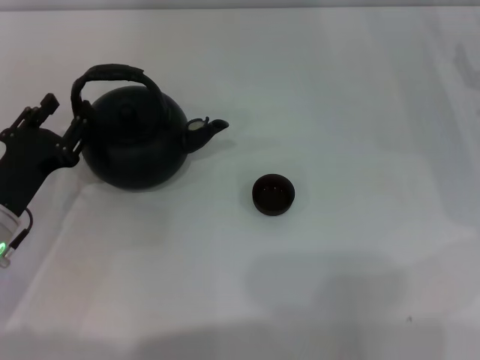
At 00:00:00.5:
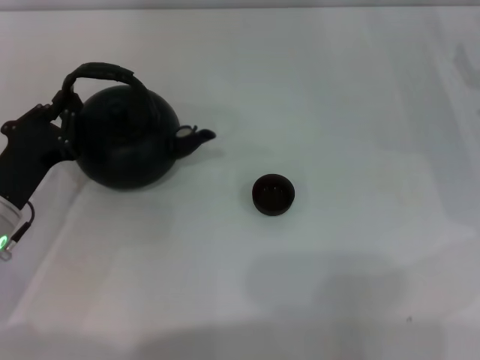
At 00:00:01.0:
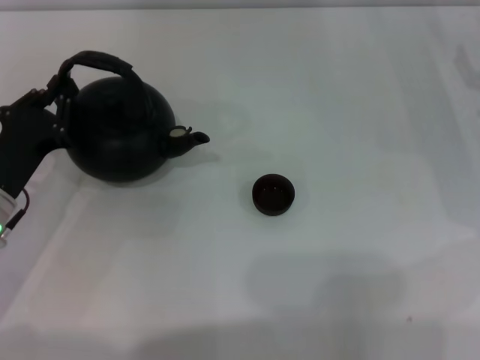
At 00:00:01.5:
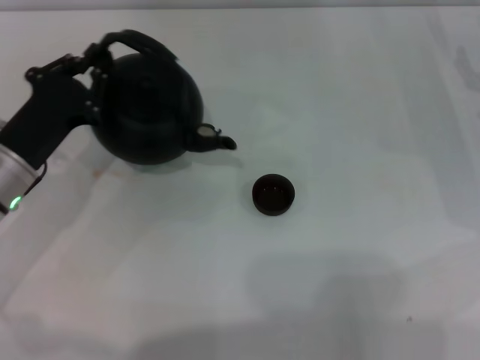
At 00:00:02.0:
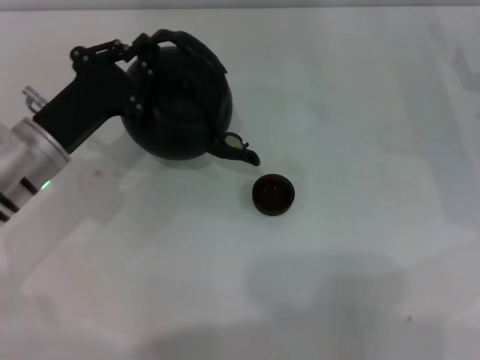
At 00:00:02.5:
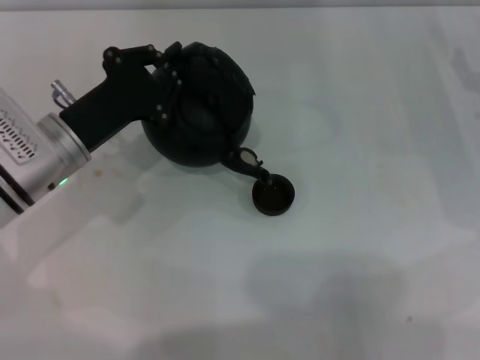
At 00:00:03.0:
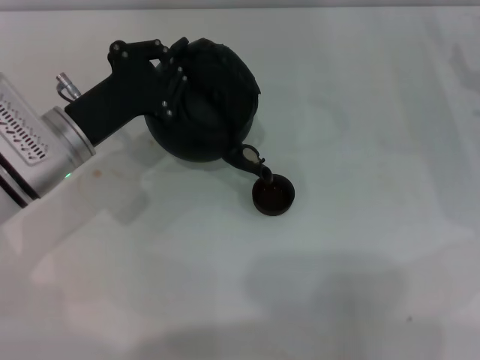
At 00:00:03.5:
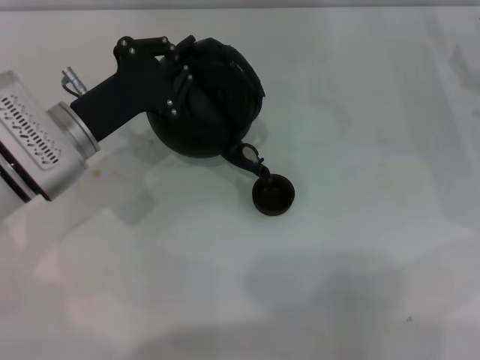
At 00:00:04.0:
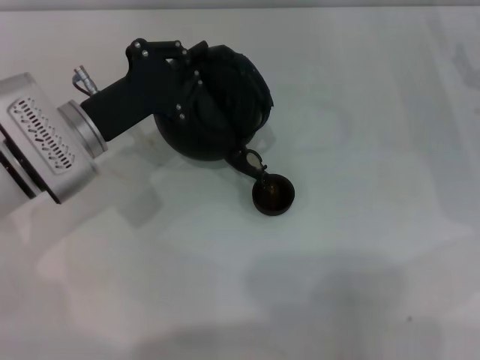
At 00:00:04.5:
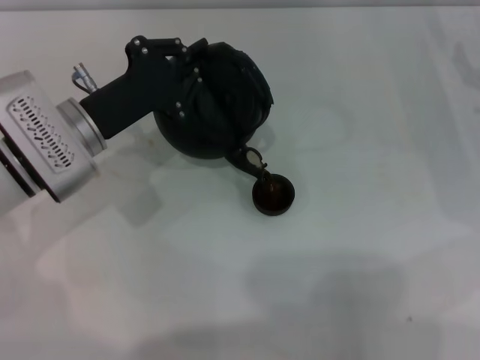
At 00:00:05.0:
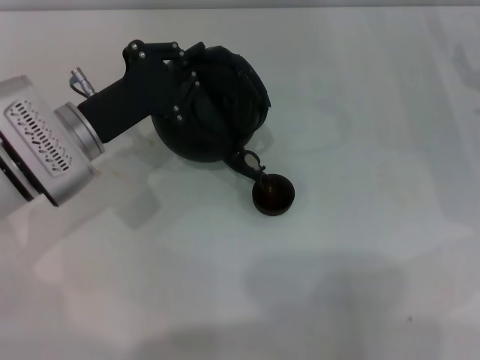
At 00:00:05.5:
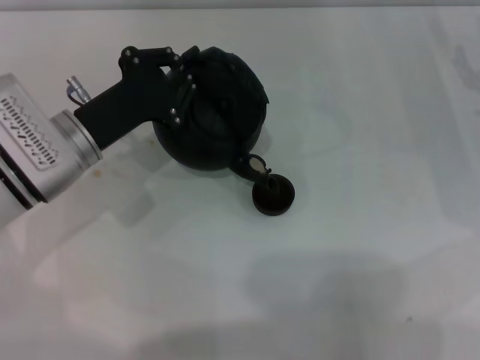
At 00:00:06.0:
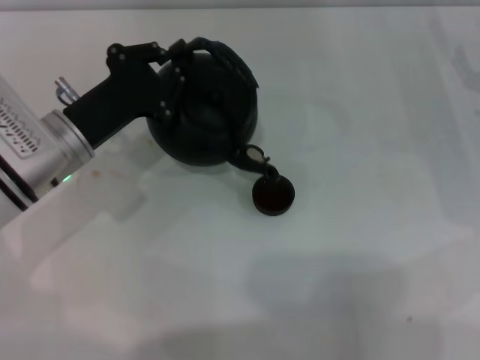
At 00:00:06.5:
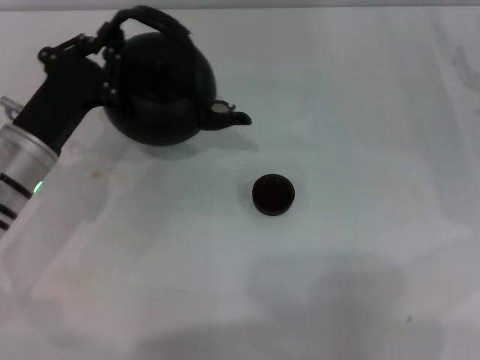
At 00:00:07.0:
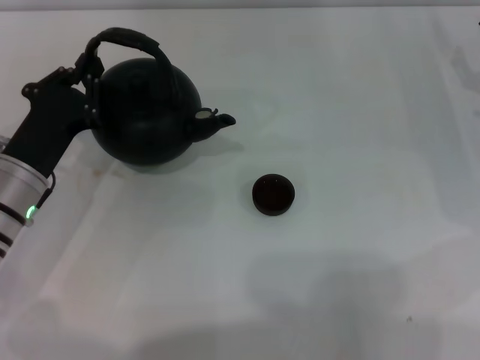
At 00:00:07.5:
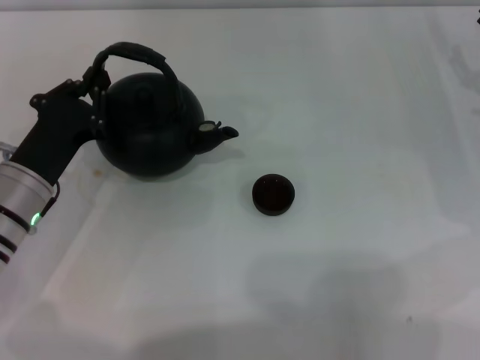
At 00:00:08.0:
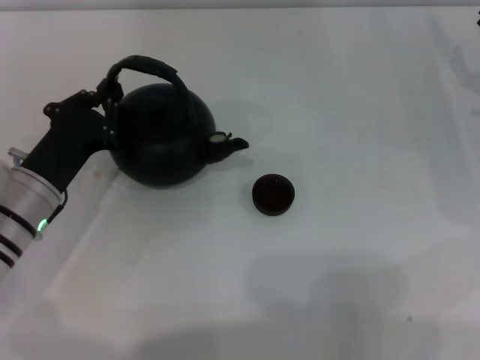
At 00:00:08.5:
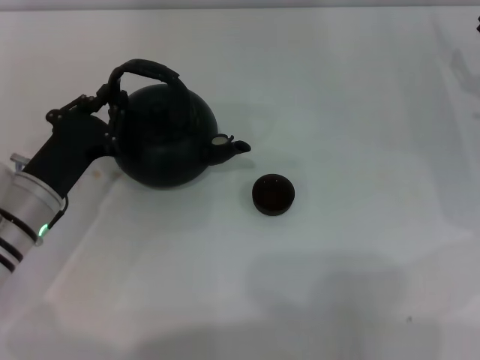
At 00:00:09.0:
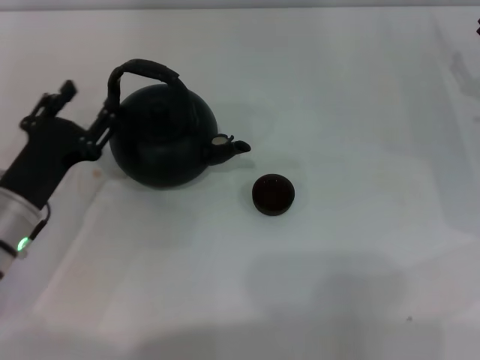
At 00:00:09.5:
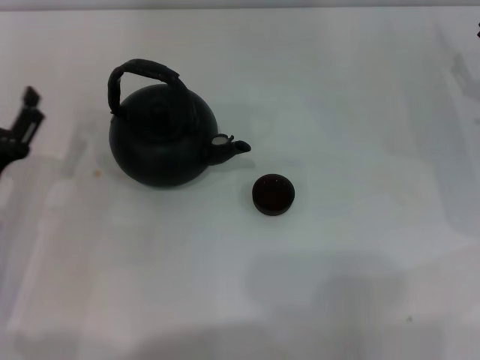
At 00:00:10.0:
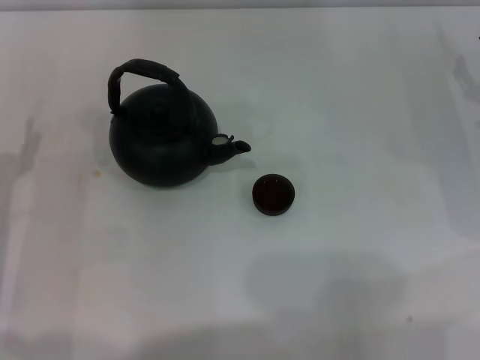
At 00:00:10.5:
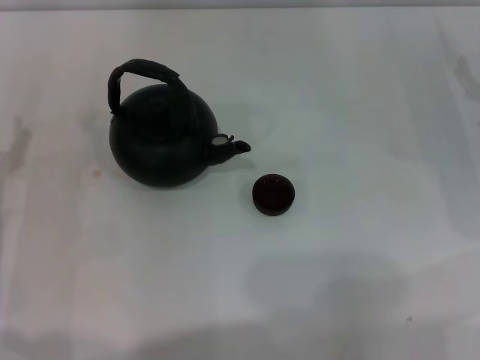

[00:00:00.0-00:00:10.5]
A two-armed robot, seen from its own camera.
Task of the whole recording: Grasp the handle of the teapot with one hand and pour tea into the teacup.
Step, 00:00:02.0 to 00:00:06.0: Pour tea into the teacup with the left gripper.
Step, 00:00:06.5 to 00:00:09.0: Put down the teapot with the left gripper.
00:00:00.0 to 00:00:02.0: The left gripper moves forward, roughly 5 cm, and closes its fingers.
00:00:06.5 to 00:00:08.5: The grippers stay close to where they were, moving slightly.
00:00:08.5 to 00:00:10.5: The left gripper is displaced to the left by roughly 5 cm, and opens its fingers.
